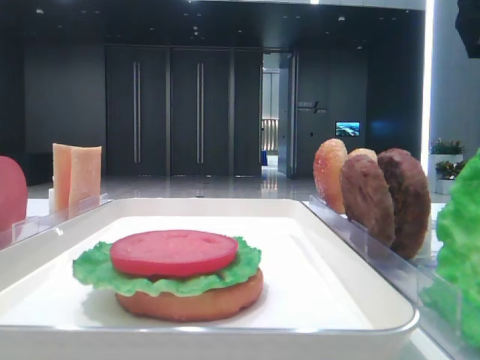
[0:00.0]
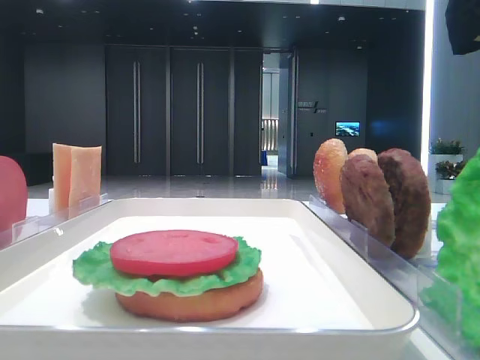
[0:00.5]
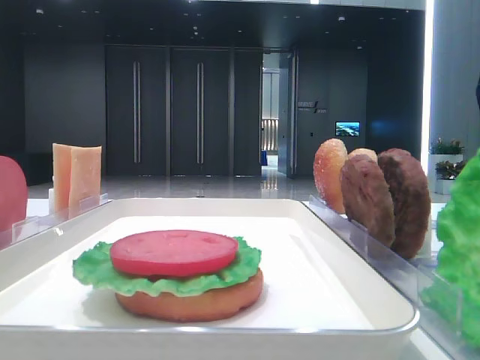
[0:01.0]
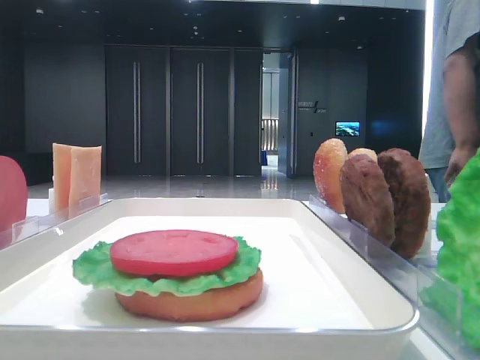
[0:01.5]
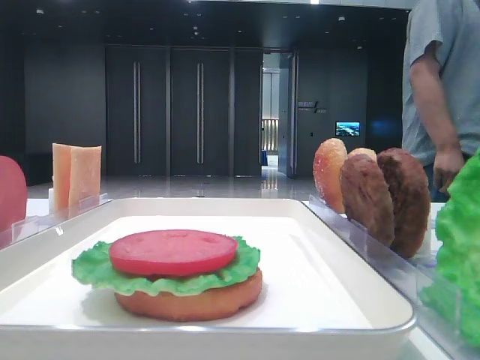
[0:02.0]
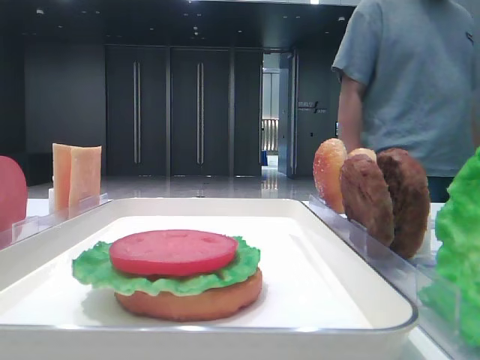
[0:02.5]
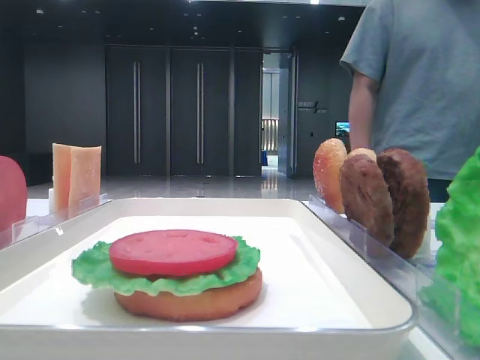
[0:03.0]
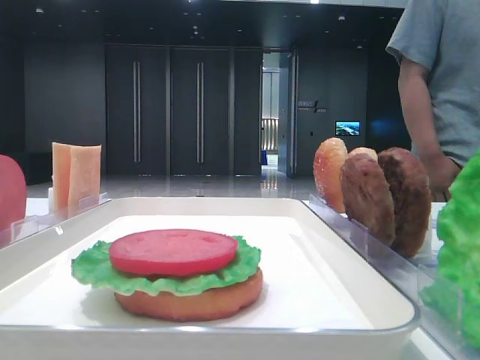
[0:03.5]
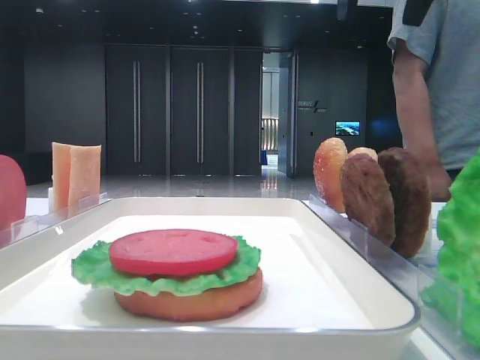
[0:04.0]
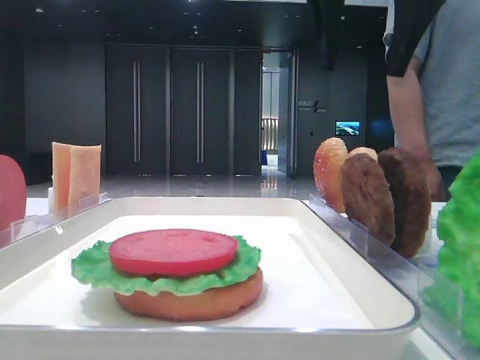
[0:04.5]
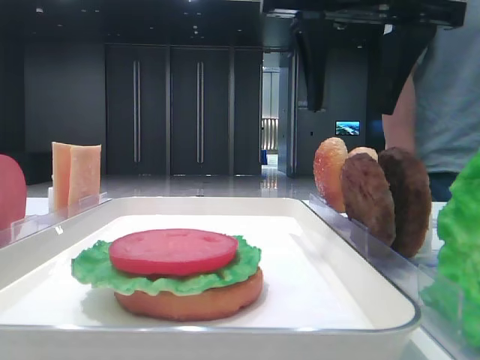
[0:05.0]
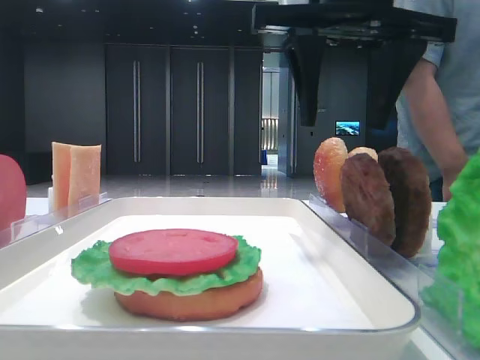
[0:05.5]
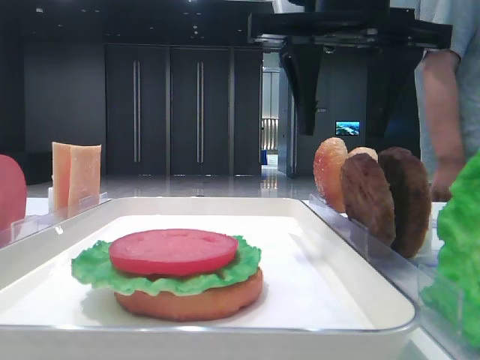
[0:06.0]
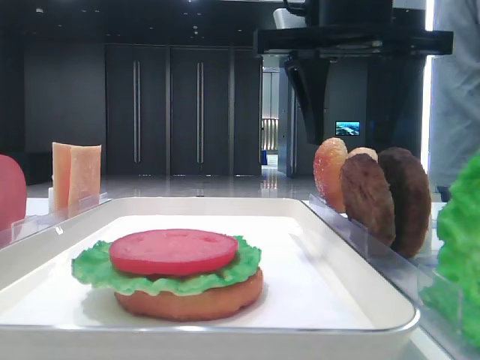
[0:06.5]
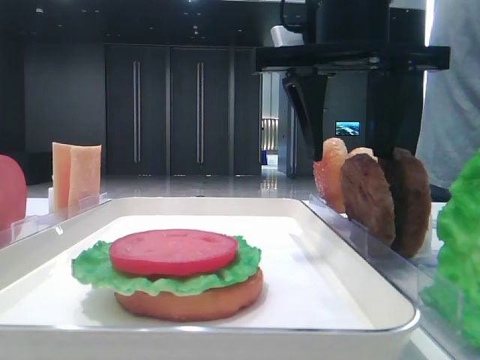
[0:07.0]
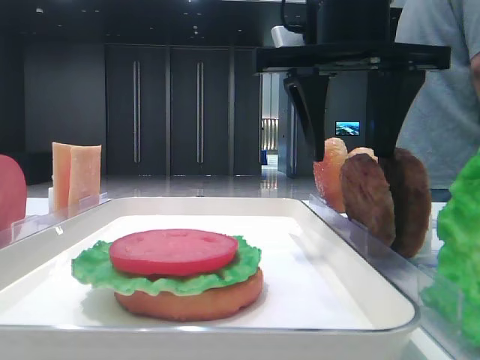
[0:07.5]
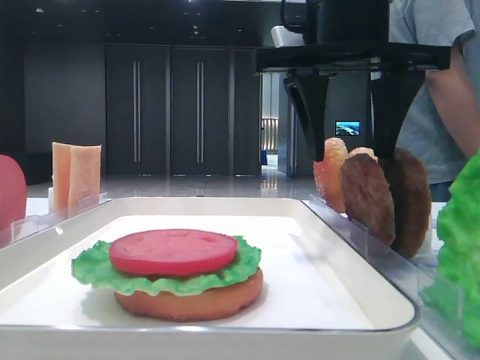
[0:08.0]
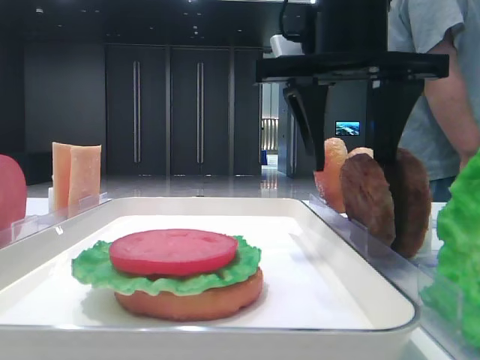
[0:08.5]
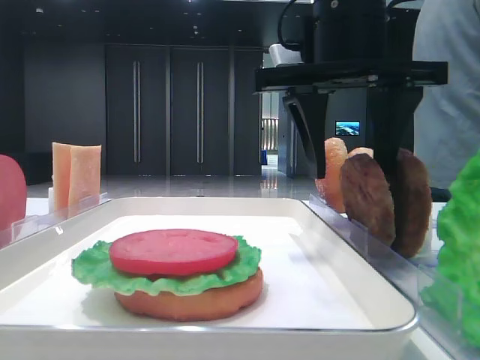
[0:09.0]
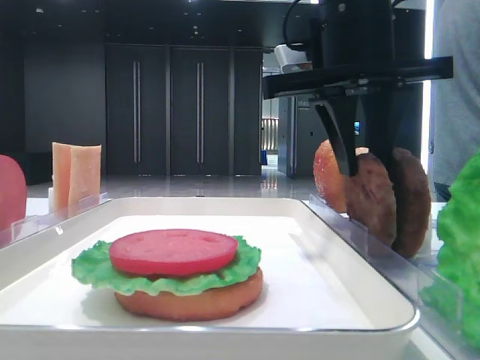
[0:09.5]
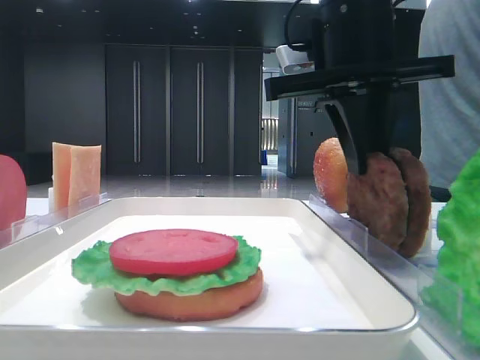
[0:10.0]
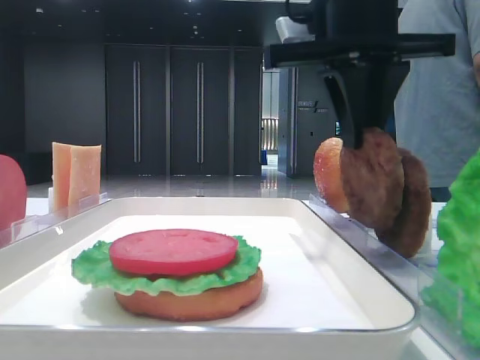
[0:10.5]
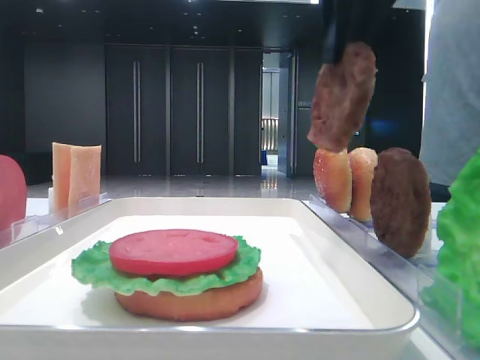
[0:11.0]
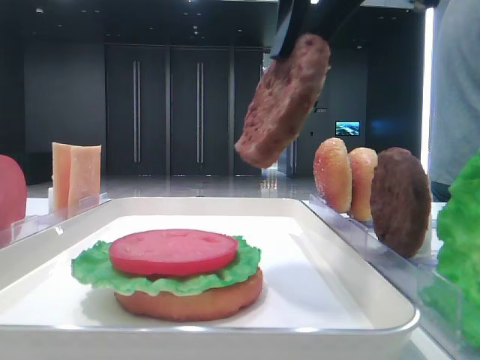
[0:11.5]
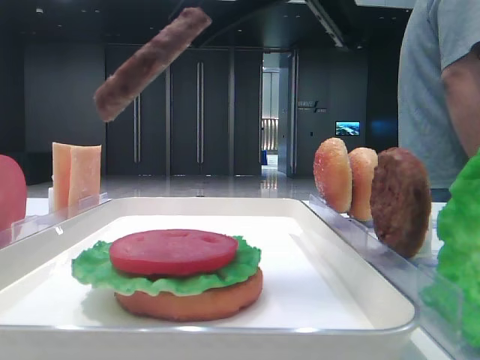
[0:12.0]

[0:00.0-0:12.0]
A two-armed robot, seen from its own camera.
Step, 0:00.0 to 0:09.5: Grab the patty with the right hand.
0:02.0 to 0:04.0: The right gripper travels to the left by approximately 20 cm.
0:04.0 to 0:06.0: The right gripper heads downward, covering about 10 cm.
0:06.0 to 0:08.0: The grippers stay close to where they were, moving slightly.
0:08.0 to 0:10.0: The right gripper closes up.
0:10.0 to 0:12.0: The right gripper goes some 10 cm backward and upward.

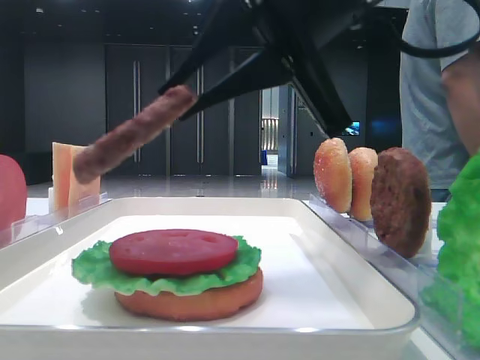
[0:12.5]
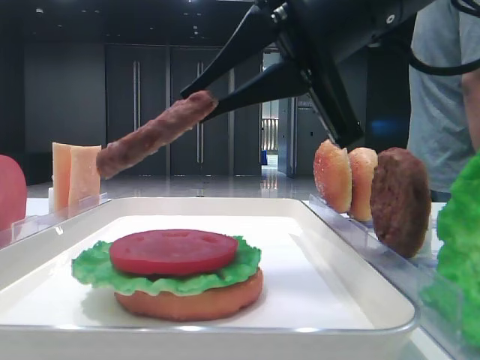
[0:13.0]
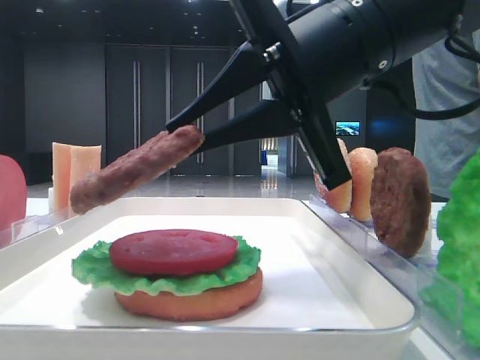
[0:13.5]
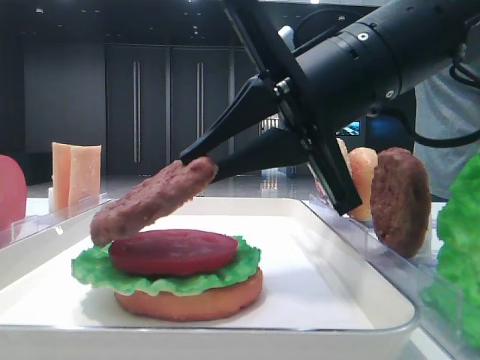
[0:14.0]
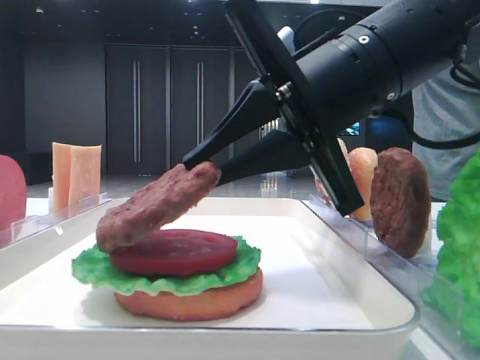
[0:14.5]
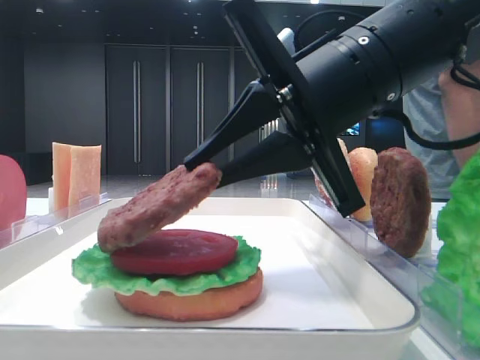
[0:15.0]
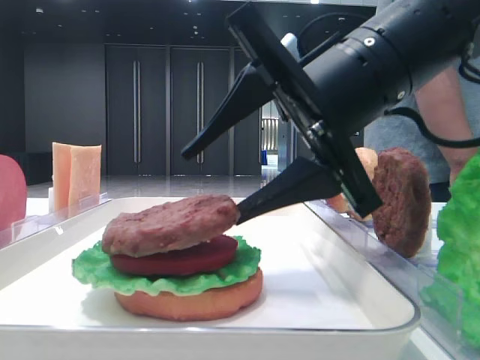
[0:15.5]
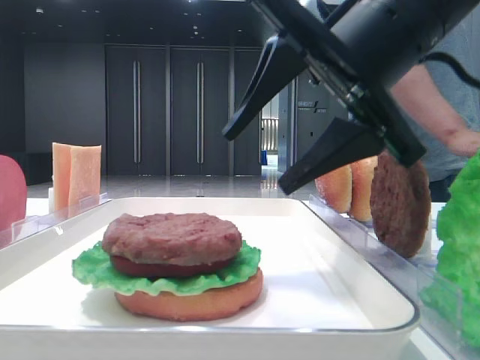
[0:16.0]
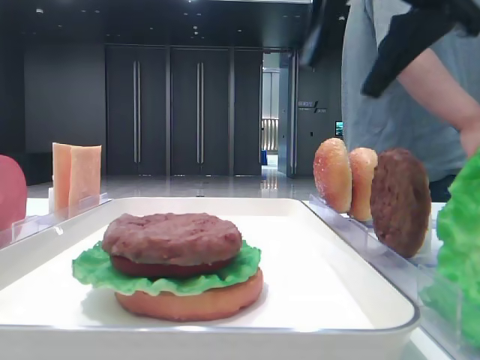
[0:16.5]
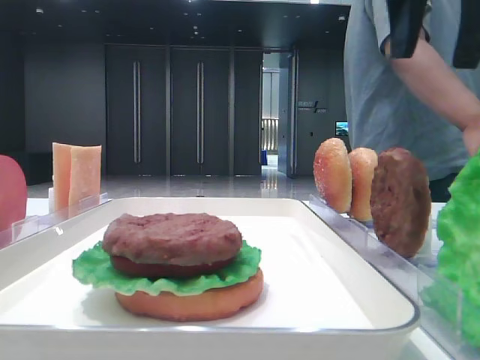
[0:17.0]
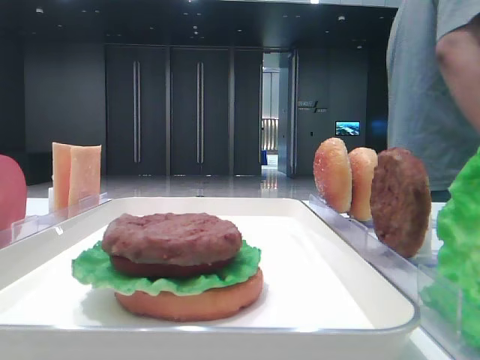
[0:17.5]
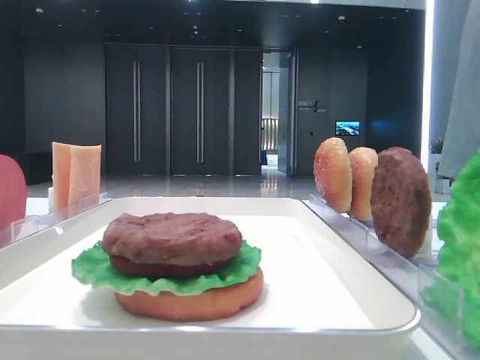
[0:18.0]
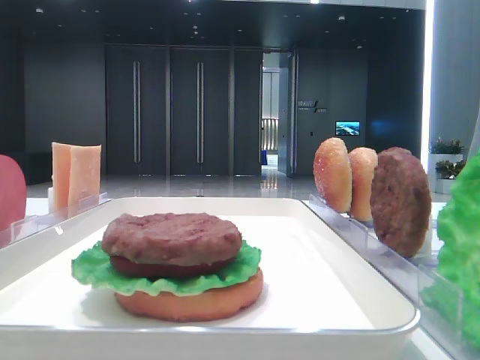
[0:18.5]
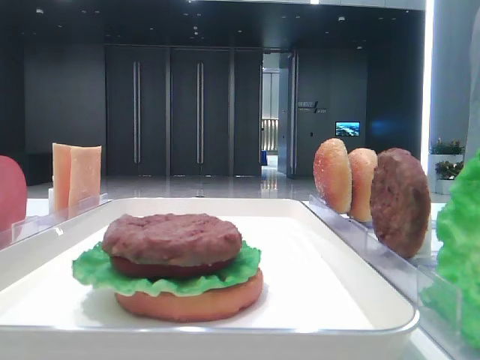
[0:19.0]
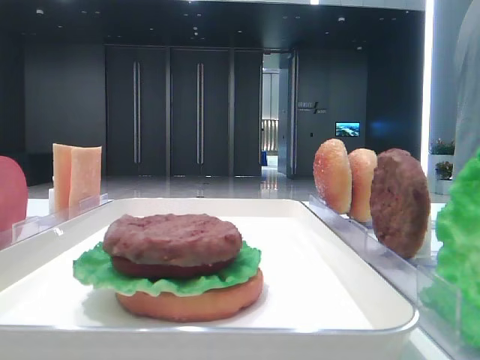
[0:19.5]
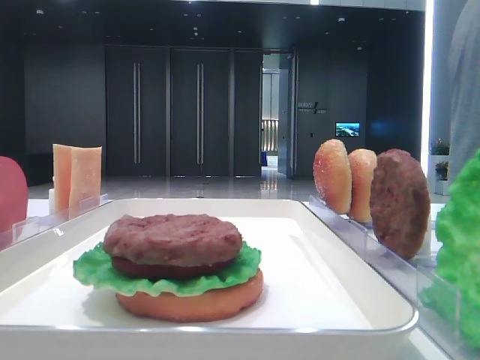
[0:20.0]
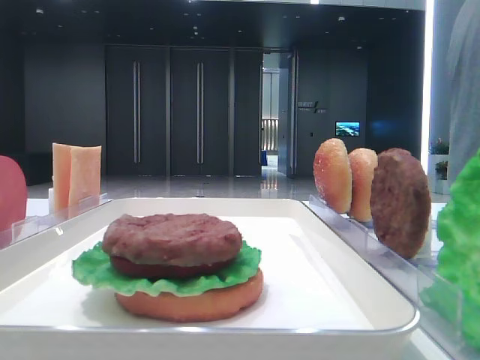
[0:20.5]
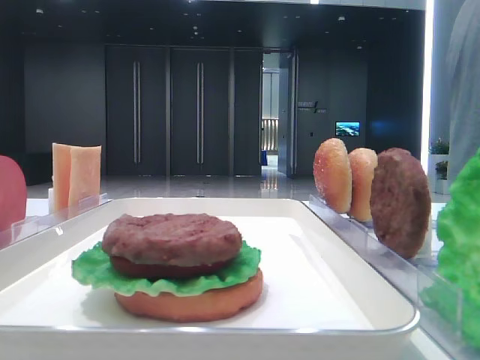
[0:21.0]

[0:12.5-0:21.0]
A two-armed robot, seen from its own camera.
Step, 0:12.5 to 0:15.5: Place the patty on the tomato slice with the right hand.
0:12.5 to 0:14.5: The right gripper goes roughly 5 cm downward.
0:14.5 to 0:16.5: The right gripper travels upward by about 10 cm, and opens its fingers.
0:16.5 to 0:19.0: The right gripper travels backward and to the right by about 25 cm.
0:19.0 to 0:21.0: The right gripper shifts approximately 10 cm backward.

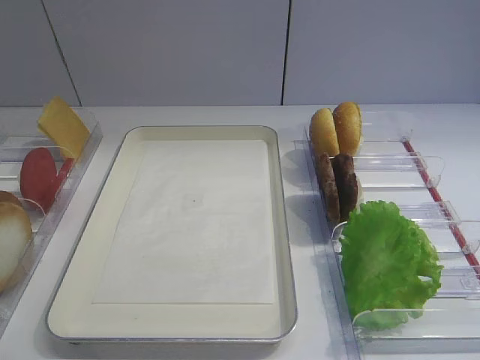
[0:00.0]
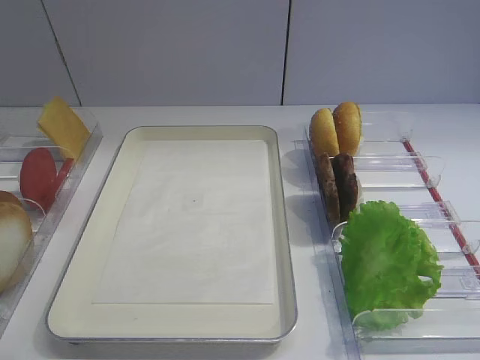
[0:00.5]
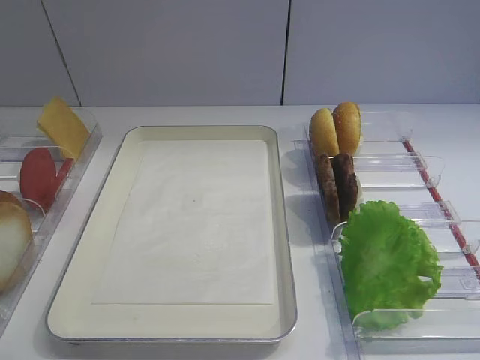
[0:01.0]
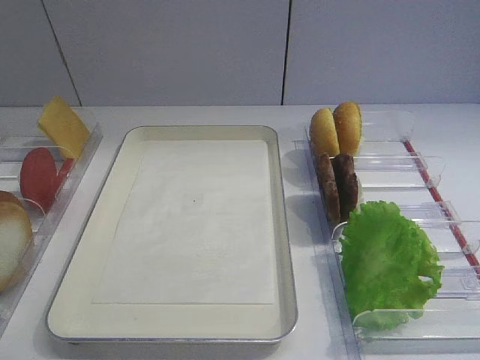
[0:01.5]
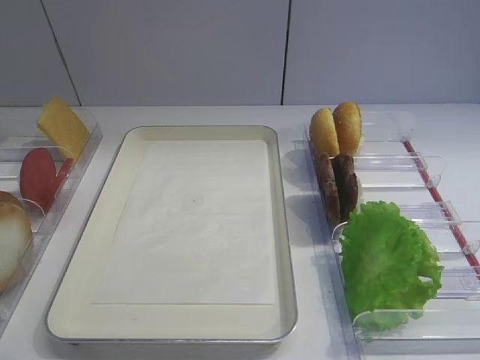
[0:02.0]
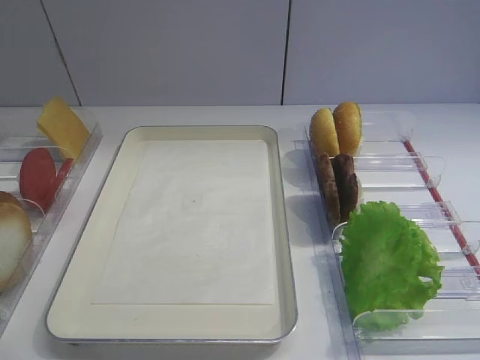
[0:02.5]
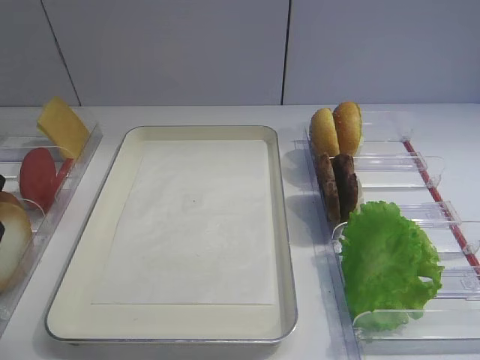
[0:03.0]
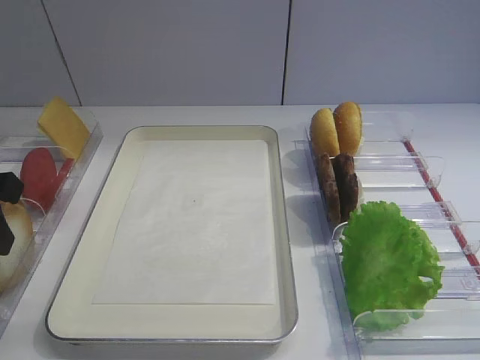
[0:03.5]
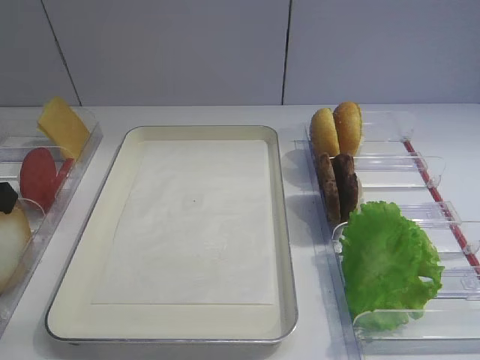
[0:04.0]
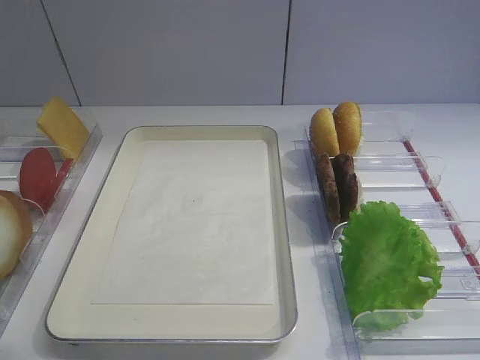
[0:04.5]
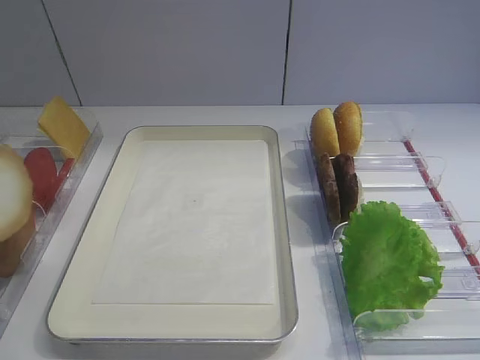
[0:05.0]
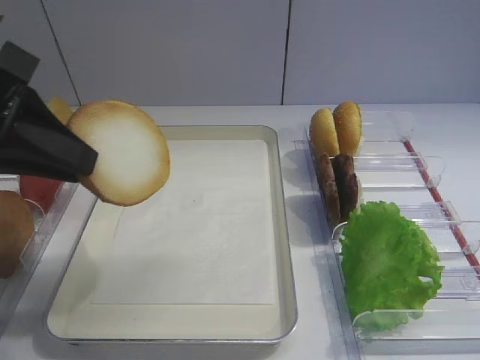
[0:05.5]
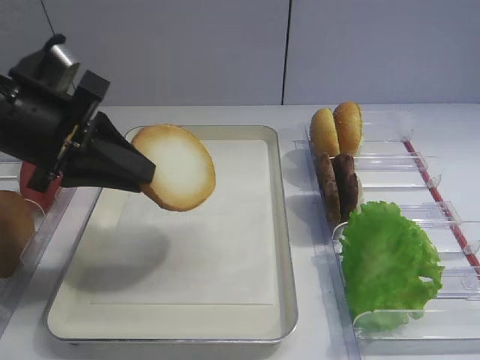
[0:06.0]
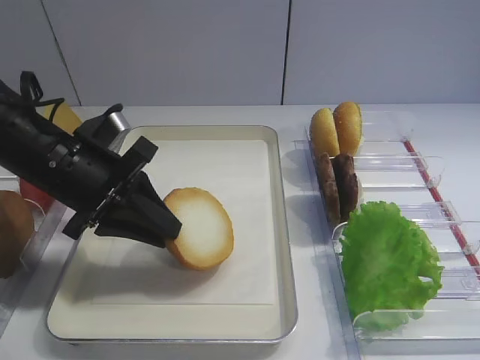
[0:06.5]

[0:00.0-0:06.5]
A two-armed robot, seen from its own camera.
Step, 0:00.0 to 0:05.0: Pick up the bread slice with the left gripper.
0:02.0 to 0:04.5: The left gripper moves forward, roughly 5 cm, and closes up.
0:04.5 to 0:06.5: The left gripper heads downward, to the right and forward, covering about 20 cm.
